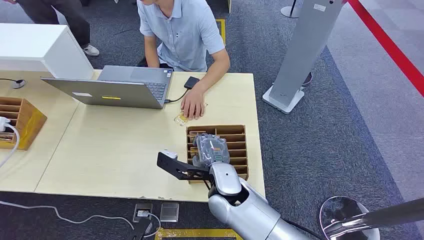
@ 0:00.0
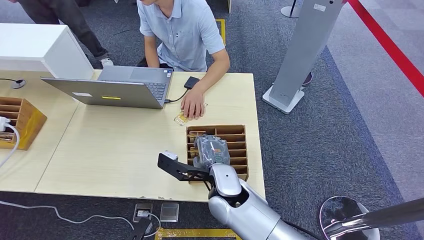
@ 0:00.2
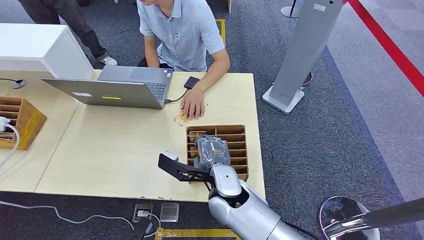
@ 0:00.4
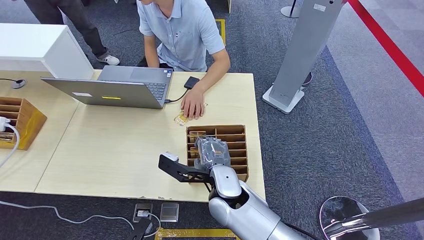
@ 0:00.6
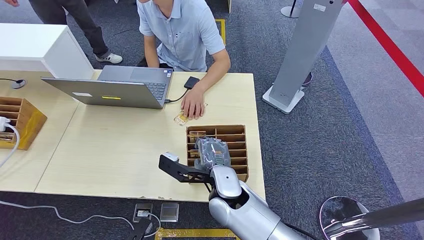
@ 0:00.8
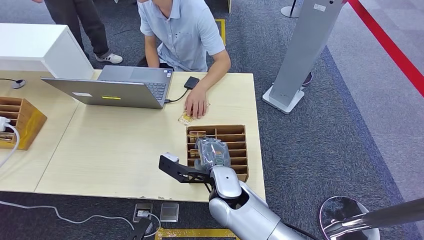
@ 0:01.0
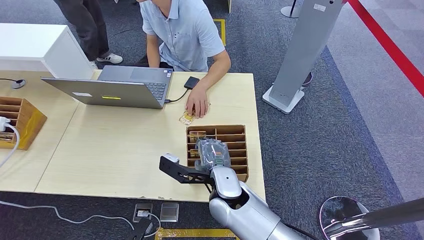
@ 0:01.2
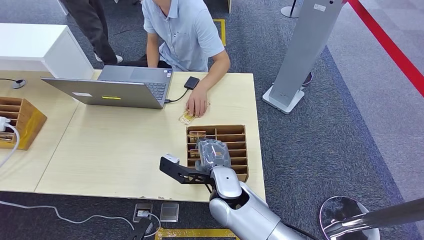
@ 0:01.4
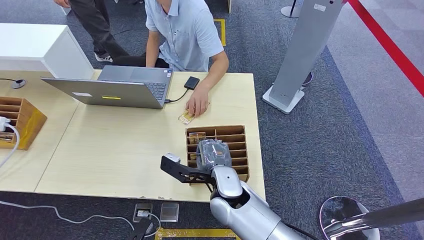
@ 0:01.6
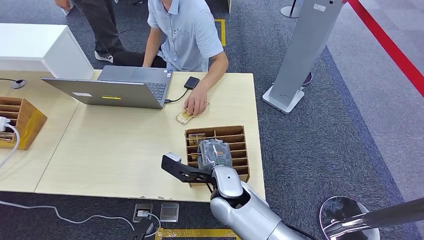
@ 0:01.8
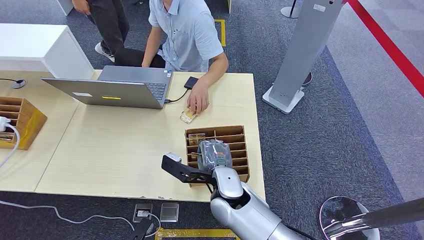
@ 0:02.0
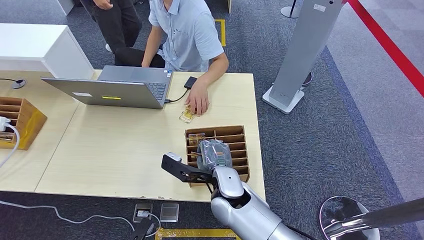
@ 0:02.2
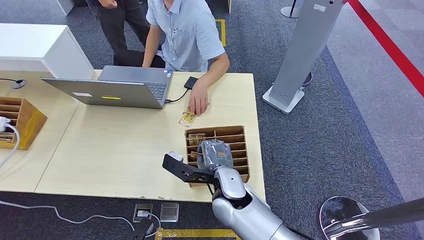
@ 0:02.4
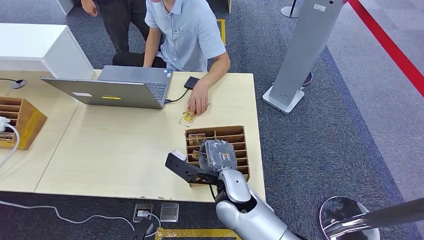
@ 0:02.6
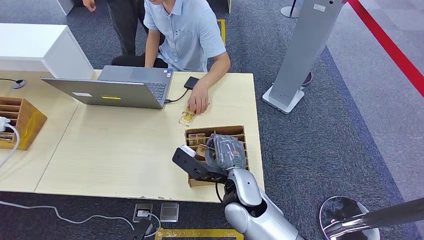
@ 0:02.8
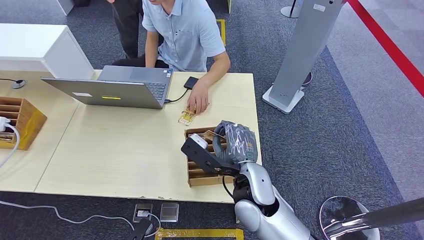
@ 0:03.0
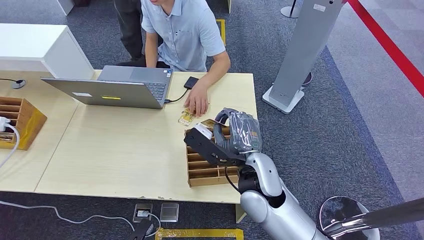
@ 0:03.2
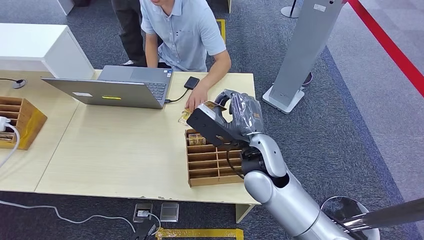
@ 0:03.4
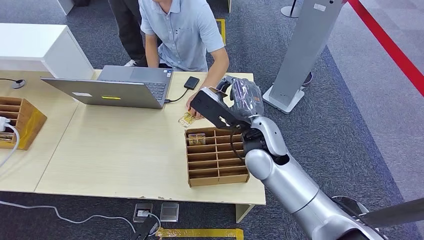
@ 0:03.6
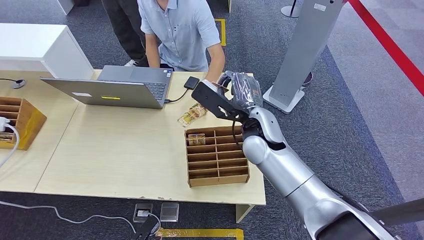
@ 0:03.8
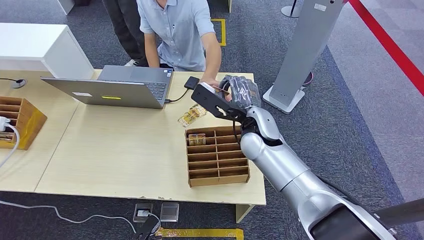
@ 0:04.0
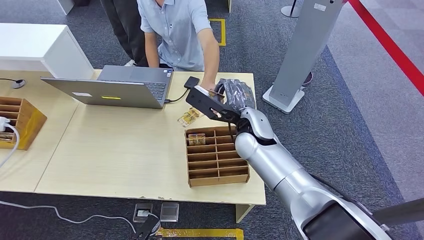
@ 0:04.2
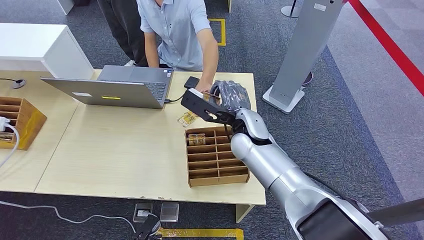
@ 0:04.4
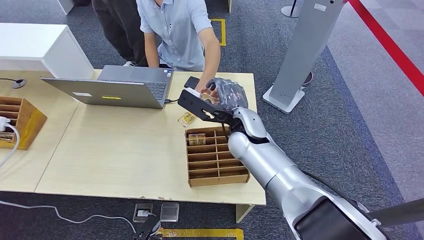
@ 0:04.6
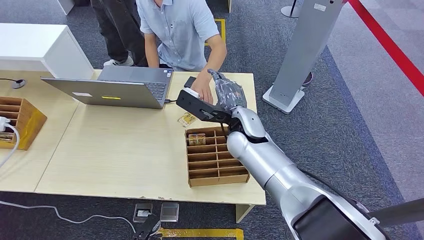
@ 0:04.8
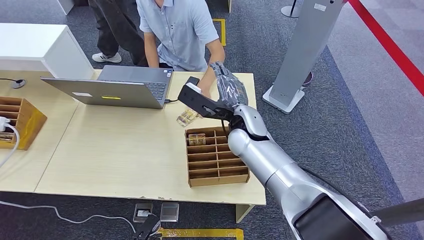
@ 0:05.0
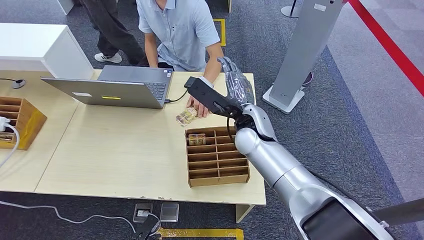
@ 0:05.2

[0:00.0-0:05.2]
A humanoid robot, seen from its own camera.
Step, 0:00.0 to 0:02.8: Pick up the key card from the card box.
Step, 0:04.0 to 0:05.2: Hand the key card to the target.
0:01.8 to 0:03.4: The right hand travels upward and to the right by approximately 10 cm.
0:03.4 to 0:05.2: The right hand shifts some 10 cm forward.

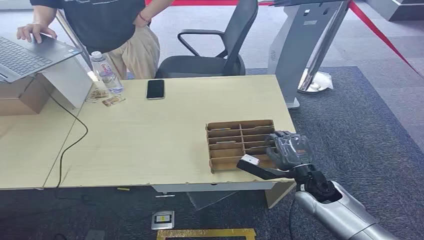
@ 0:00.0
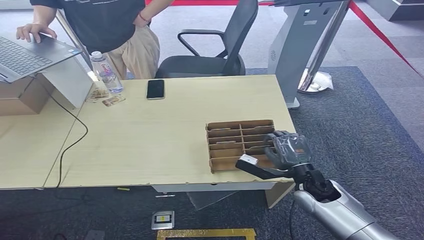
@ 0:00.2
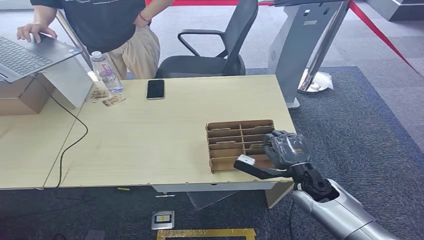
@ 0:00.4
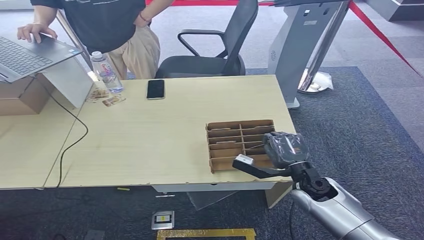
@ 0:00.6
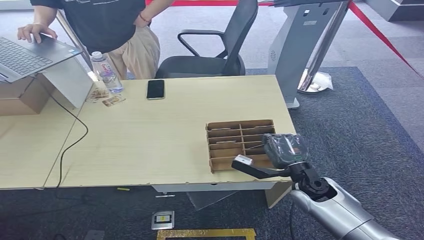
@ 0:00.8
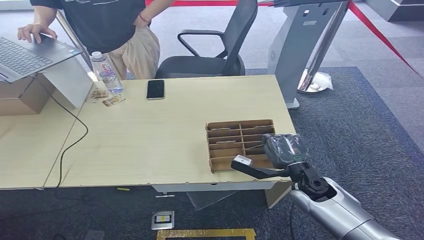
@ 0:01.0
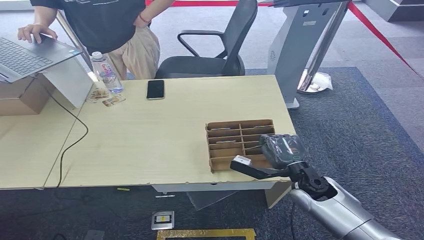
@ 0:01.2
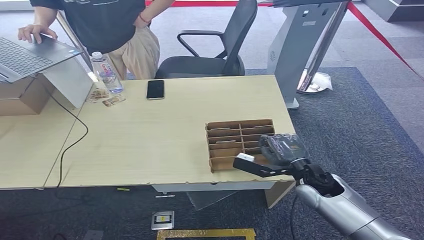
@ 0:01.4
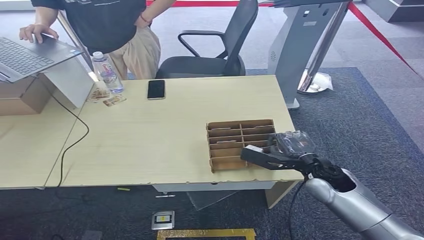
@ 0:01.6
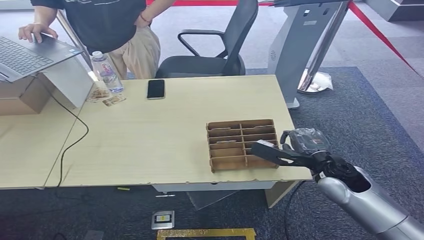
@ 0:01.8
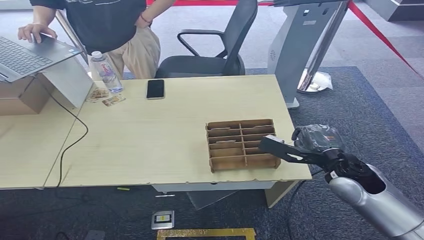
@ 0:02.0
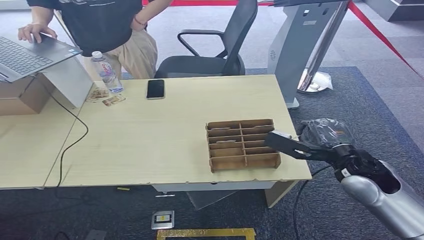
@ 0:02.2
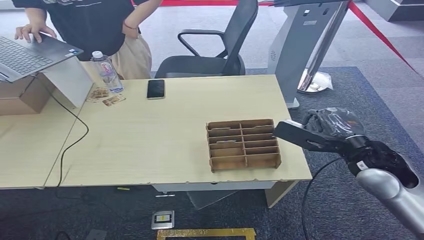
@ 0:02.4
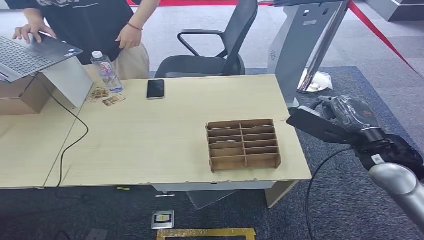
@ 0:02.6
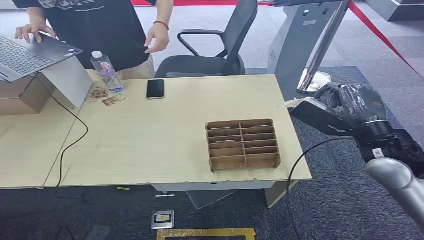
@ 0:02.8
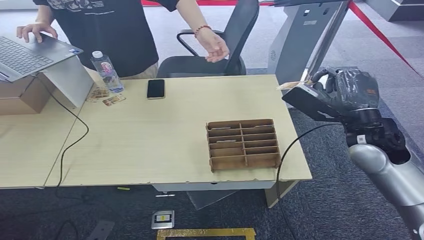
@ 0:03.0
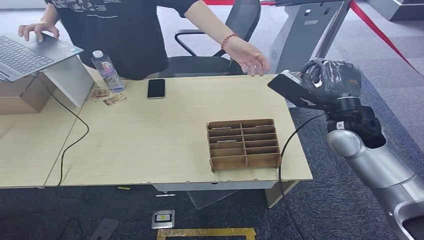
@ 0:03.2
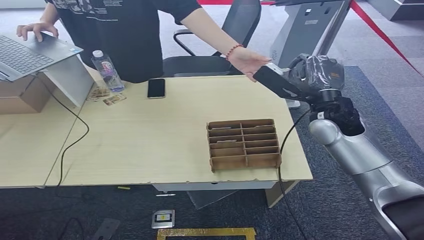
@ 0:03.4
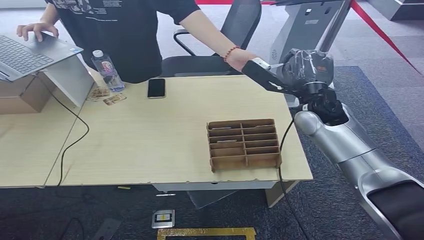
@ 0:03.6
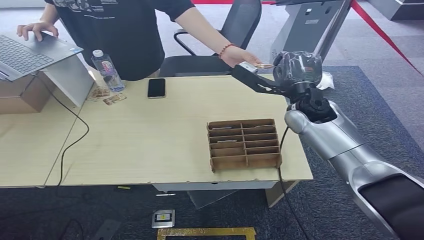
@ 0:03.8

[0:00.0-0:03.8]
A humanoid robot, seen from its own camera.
Step, 0:00.0 to 0:02.6: Pick up the key card from the card box.
Step, 0:02.8 to 0:03.8: Hand the key card to the target.
0:01.2 to 0:02.6: The right hand shifts about 20 cm upward and to the right.

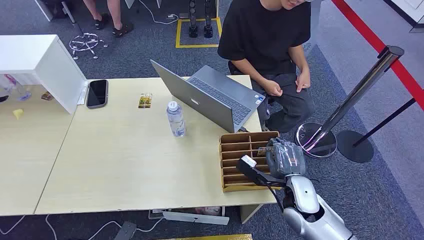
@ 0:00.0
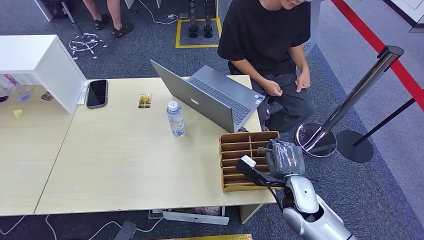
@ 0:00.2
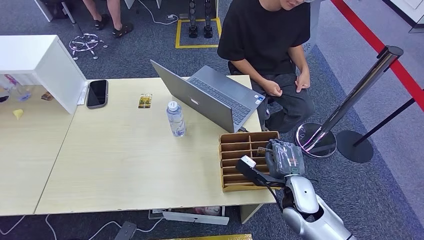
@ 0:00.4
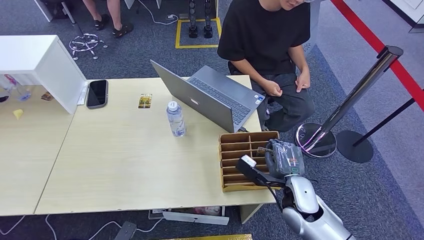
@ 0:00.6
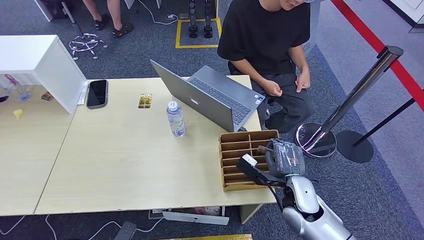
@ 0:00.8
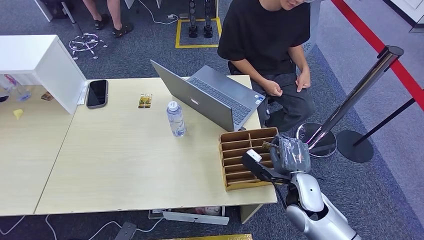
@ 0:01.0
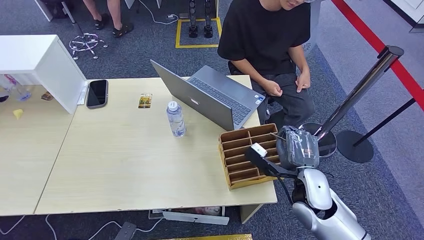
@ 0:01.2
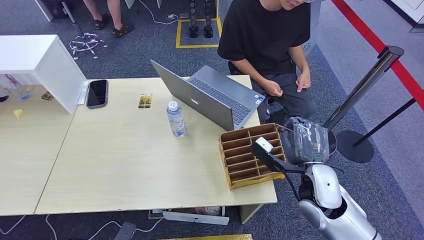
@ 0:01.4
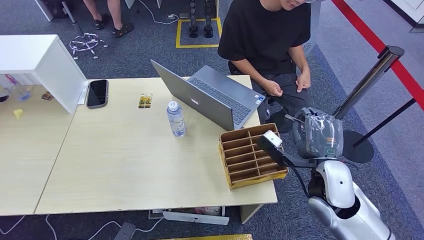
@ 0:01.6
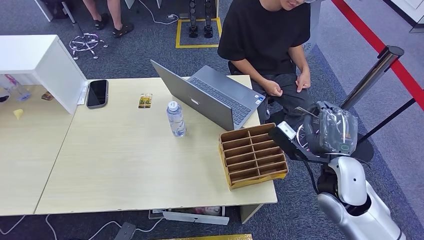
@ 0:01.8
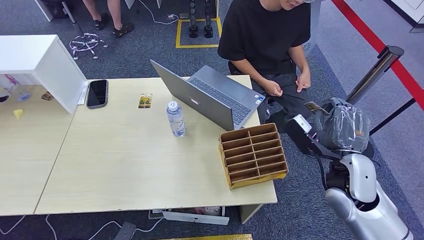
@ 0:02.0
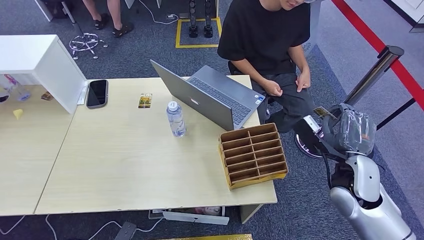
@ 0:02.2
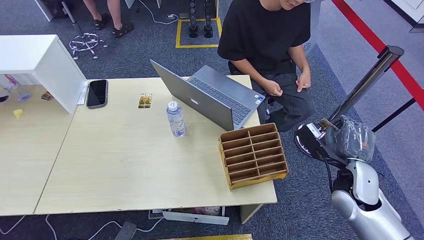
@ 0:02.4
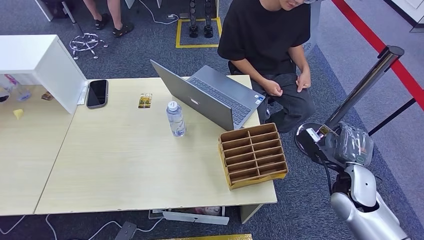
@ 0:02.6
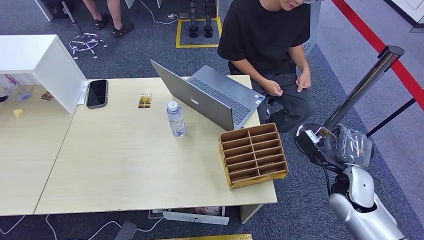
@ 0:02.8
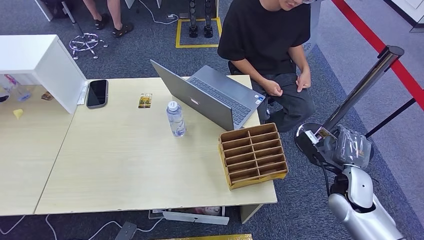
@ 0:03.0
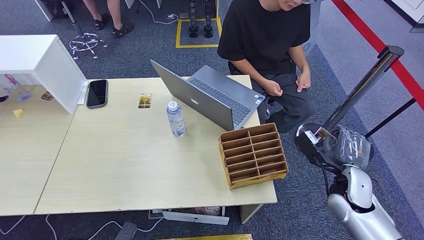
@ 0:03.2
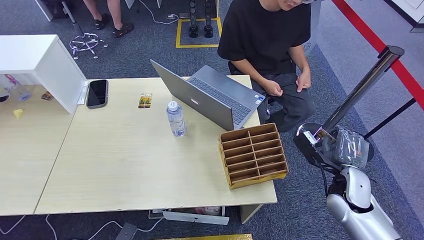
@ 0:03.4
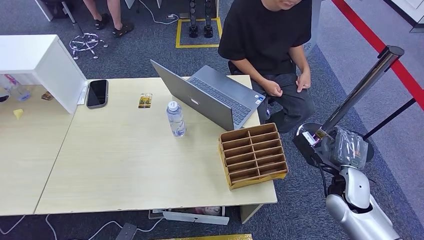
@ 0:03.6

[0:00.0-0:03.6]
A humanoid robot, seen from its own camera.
Step, 0:00.0 to 0:01.6: Pick up the key card from the card box.
Step, 0:01.8 to 0:03.6: Hand the key card to the target.
0:01.8 to 0:03.6: The right hand goes roughly 10 cm downward and to the right.
